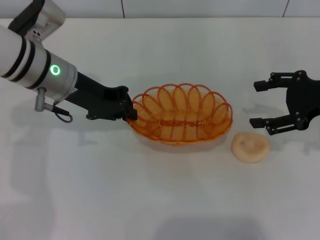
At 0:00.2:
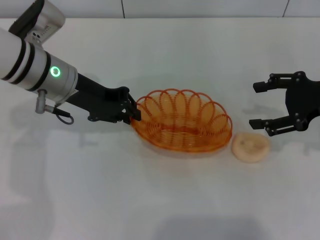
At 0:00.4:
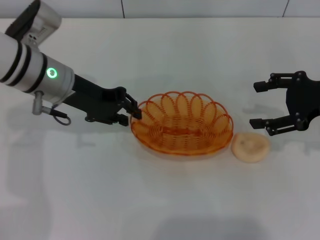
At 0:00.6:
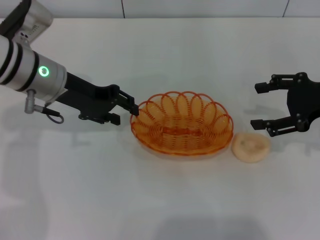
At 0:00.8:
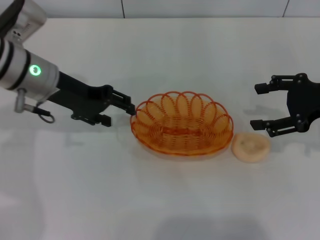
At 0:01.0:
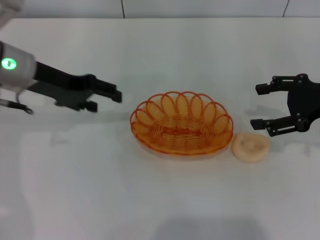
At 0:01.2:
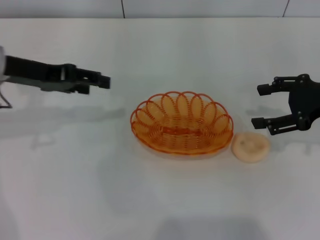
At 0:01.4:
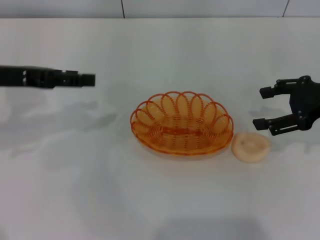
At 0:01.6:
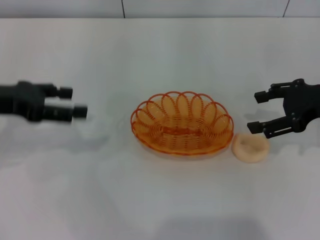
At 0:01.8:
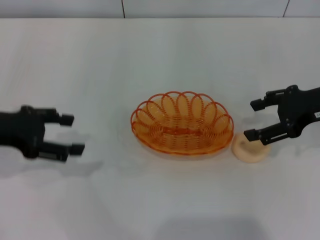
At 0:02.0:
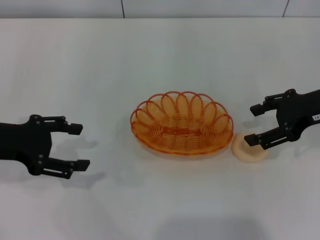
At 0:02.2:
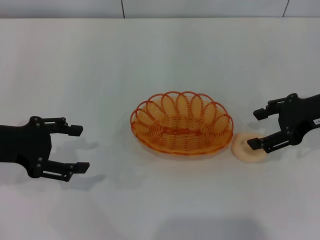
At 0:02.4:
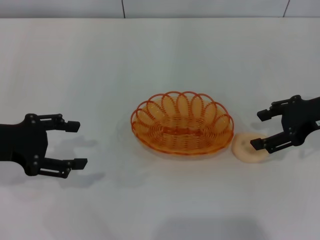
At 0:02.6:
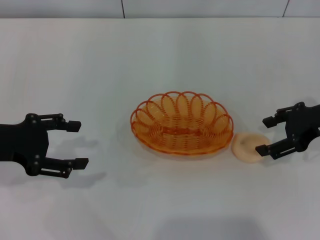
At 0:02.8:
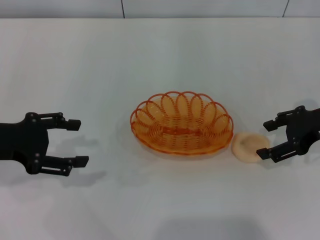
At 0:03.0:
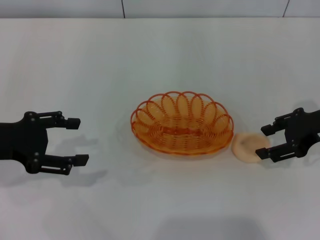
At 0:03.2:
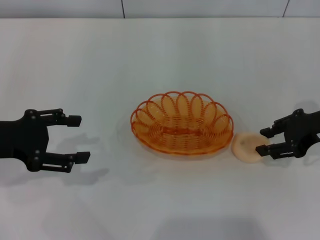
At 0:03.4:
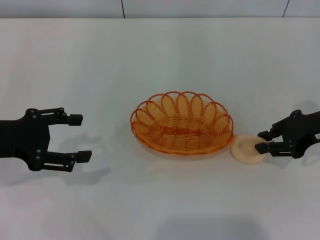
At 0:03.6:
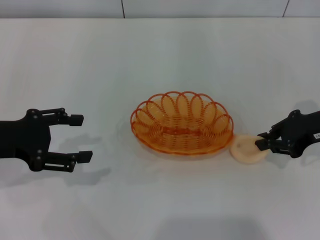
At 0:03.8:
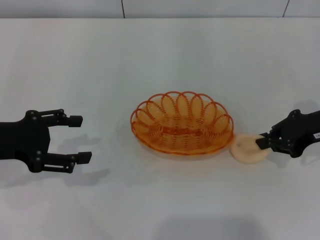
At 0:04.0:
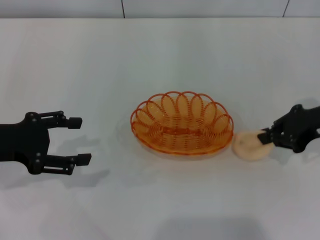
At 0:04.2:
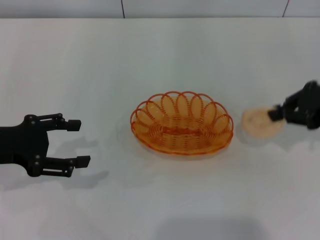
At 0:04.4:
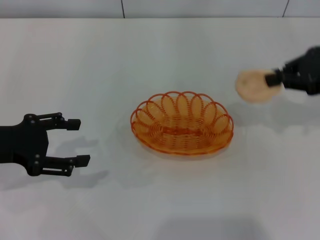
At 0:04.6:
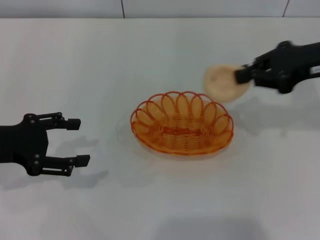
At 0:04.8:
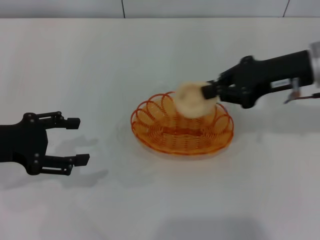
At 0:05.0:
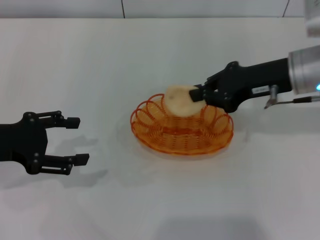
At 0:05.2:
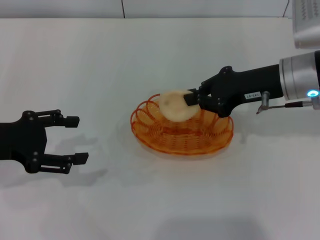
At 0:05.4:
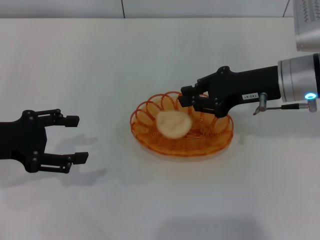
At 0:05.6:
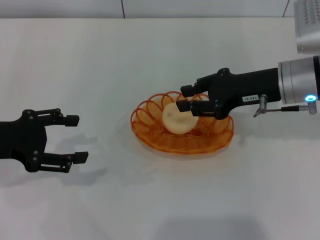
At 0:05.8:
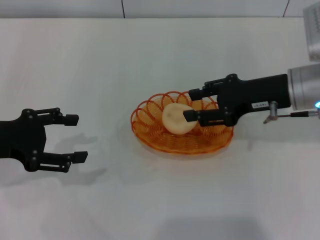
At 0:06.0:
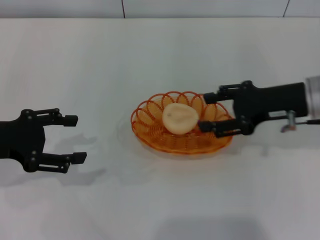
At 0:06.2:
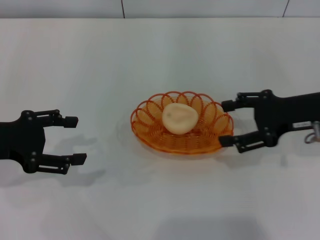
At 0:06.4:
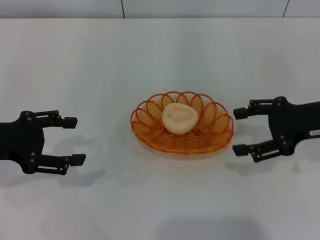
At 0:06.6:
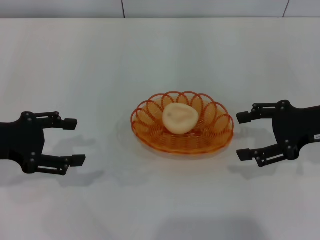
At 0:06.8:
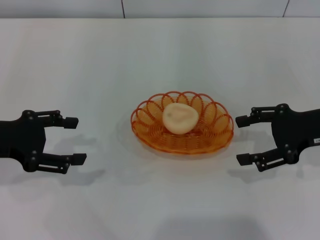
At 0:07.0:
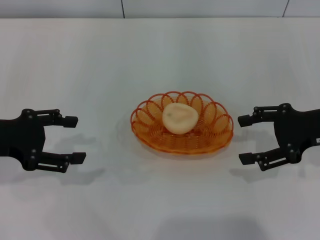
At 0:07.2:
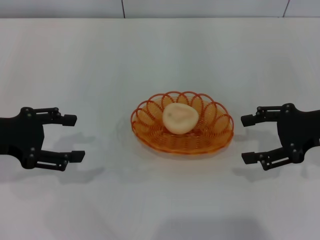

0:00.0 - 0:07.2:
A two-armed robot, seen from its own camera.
Step, 0:01.2 - 0:04.2: Pick up the egg yolk pastry with the right gripper.
Step, 0:04.4 - 0:05.8: Place the egg yolk pastry into the basket with the right gripper.
0:00.0 - 0:01.4: The left gripper goes about 15 cm to the left and backward, and opens its fingers.
0:01.4 - 0:02.8: The left gripper heads backward, covering some 5 cm.
0:02.8 - 0:04.4: The right gripper shifts about 5 cm upward, and closes up.
0:04.4 - 0:05.8: The right gripper moves to the left and downward, approximately 10 cm.
0:05.8 - 0:07.2: The right gripper heads to the right, covering approximately 10 cm, and opens its fingers.

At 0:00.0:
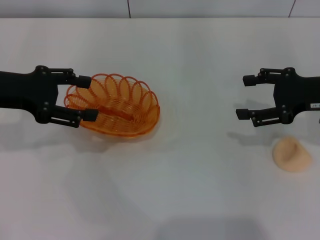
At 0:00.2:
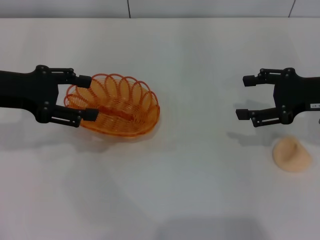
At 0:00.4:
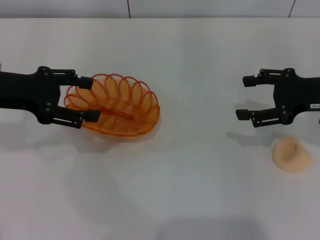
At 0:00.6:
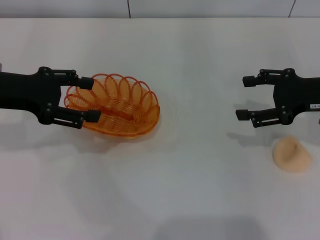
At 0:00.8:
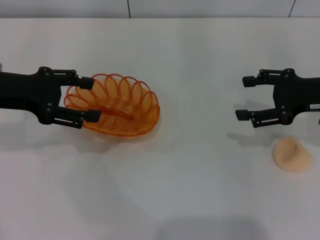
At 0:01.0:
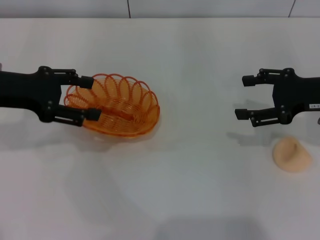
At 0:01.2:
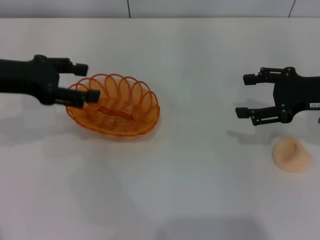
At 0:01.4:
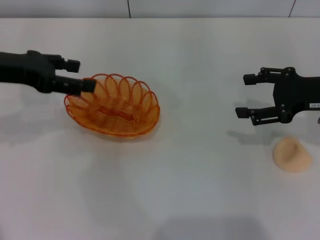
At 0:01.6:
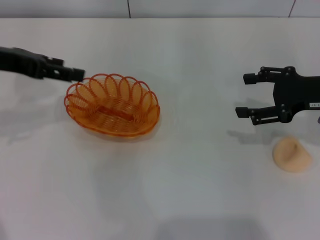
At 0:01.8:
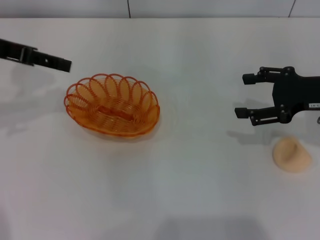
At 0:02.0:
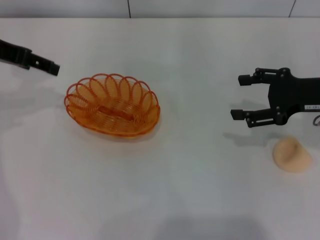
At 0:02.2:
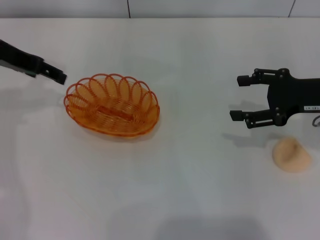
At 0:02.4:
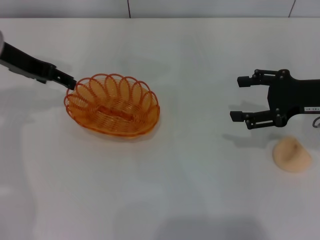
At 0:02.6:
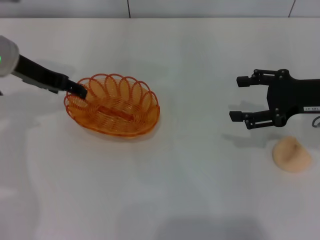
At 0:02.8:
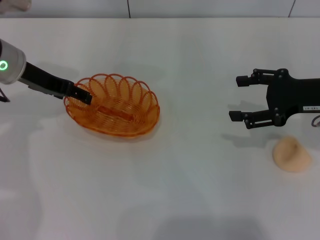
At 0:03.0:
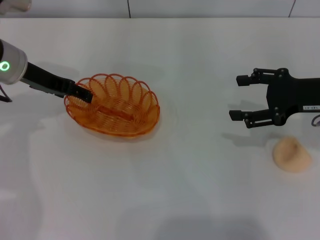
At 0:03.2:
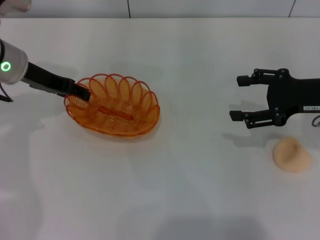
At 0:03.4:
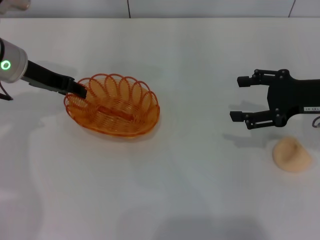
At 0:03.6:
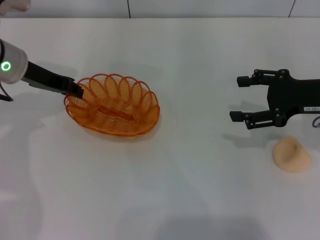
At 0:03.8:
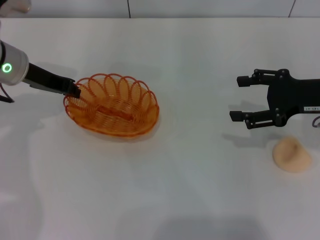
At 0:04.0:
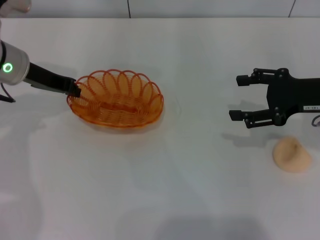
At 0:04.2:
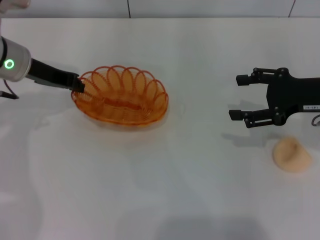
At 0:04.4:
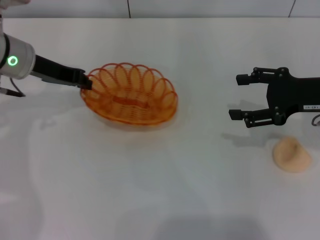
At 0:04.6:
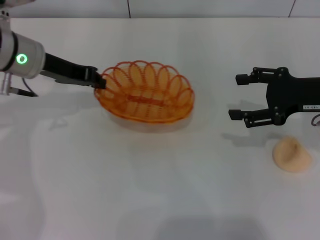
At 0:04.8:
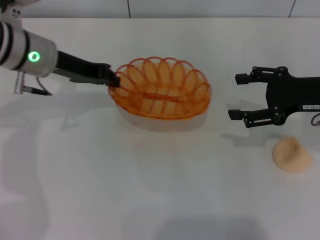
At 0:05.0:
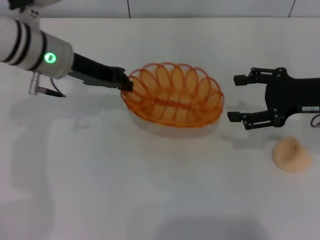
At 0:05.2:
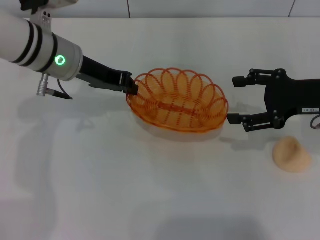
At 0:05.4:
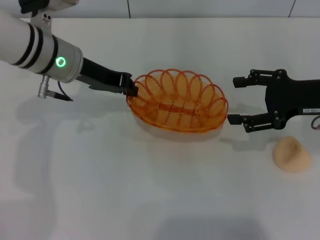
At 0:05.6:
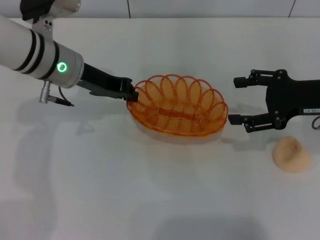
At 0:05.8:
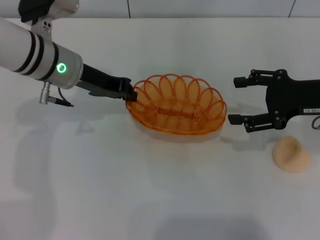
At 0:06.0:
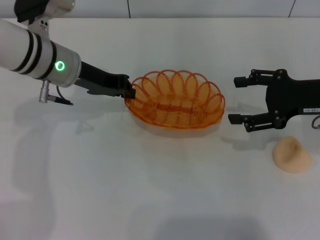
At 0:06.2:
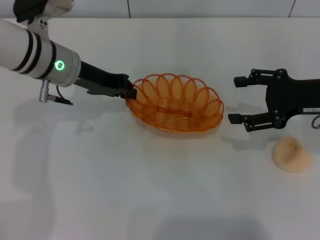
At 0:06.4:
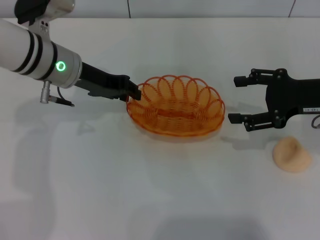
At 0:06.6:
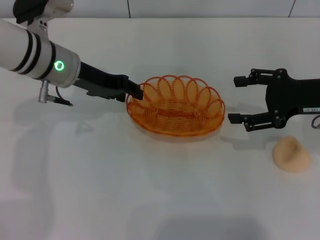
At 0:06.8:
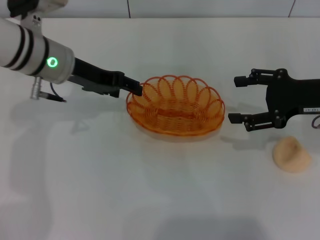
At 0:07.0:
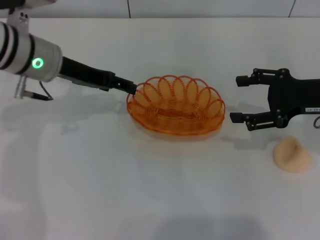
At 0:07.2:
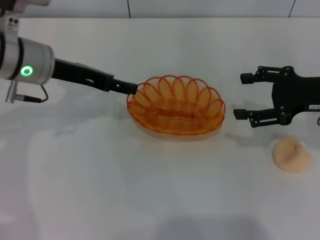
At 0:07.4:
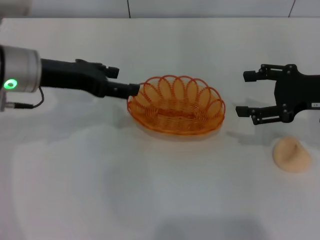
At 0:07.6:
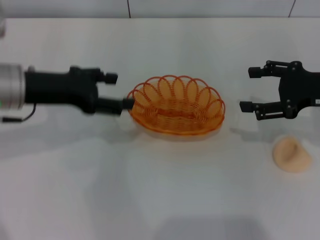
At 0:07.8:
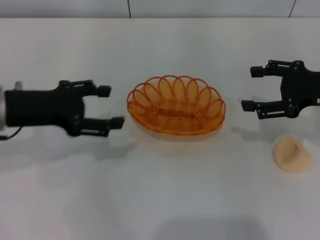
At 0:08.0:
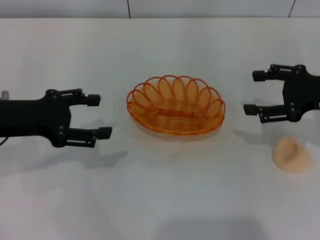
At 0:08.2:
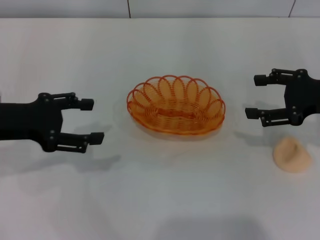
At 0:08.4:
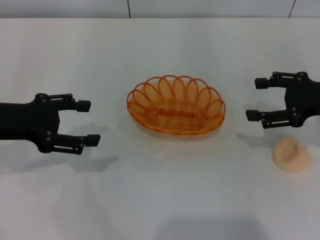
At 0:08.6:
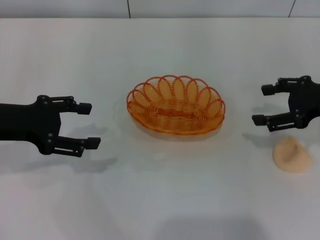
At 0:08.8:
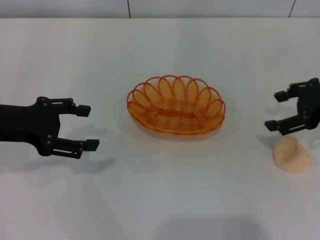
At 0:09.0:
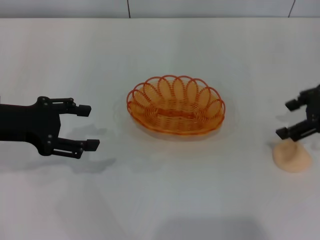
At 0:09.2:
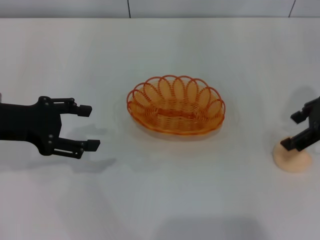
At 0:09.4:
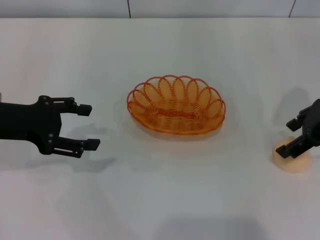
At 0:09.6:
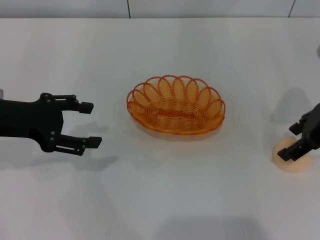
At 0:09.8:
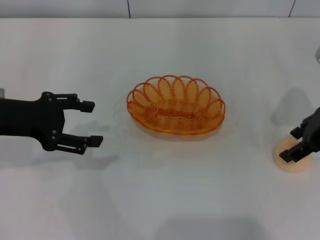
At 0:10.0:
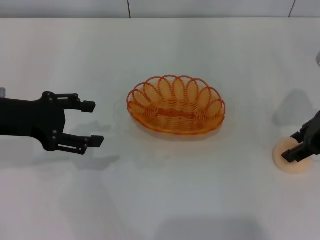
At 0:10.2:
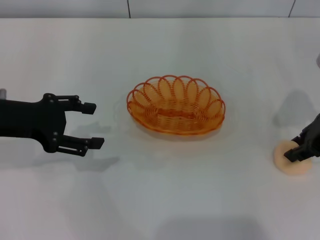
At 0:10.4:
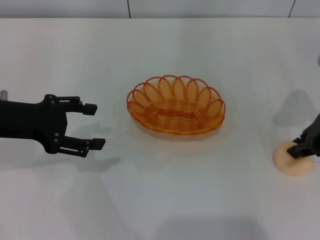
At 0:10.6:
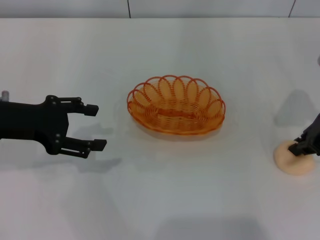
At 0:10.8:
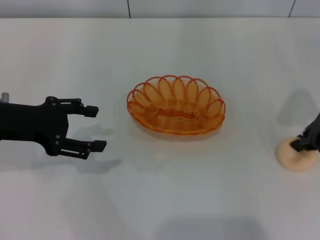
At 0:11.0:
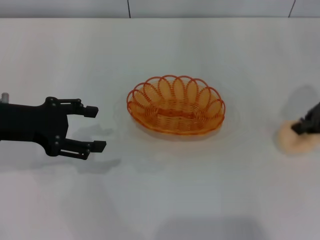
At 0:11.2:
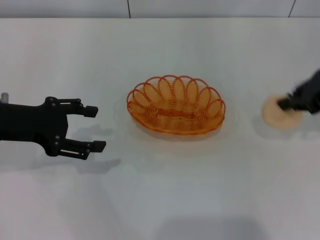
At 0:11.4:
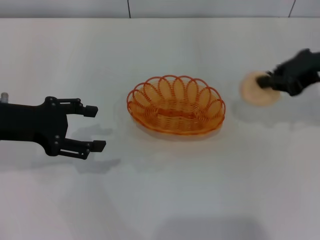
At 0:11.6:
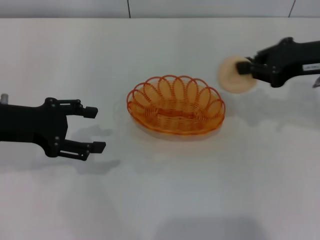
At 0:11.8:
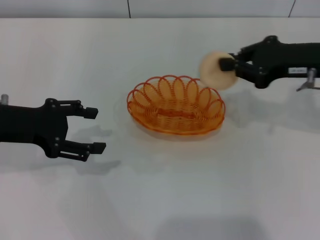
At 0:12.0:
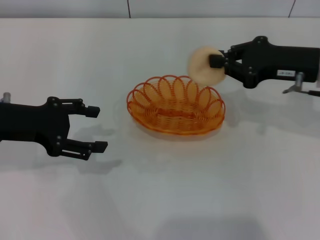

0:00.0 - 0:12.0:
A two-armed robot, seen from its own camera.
Step, 0:00.0 - 0:04.4: Pick up the basket with the left gripper.
Step, 0:04.6 - 0:07.2: Place the basket in the center of view with the left gripper.
Step, 0:07.4 - 0:11.0: Pick up the egg yolk pastry with the right gripper.
0:01.6 - 0:03.0: The left gripper heads downward and forward, covering roughly 10 cm.
0:03.0 - 0:04.4: The left gripper closes.
0:04.4 - 0:06.0: The left gripper travels to the right by roughly 5 cm.
0:06.0 - 0:07.6: The left gripper travels backward and to the left by some 10 cm, and opens.
0:07.6 - 0:09.0: The left gripper shifts some 5 cm to the left.
0:09.0 - 0:10.4: The right gripper closes up.
0:10.4 - 0:12.0: The right gripper closes its fingers.

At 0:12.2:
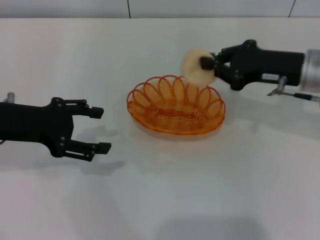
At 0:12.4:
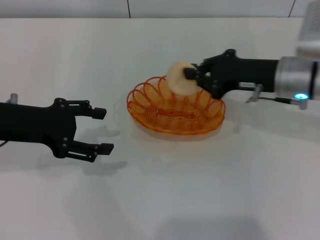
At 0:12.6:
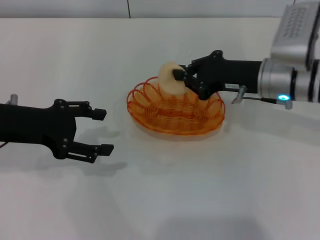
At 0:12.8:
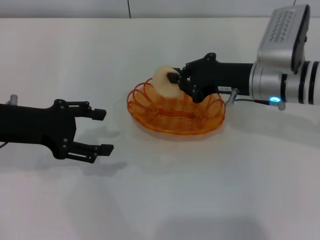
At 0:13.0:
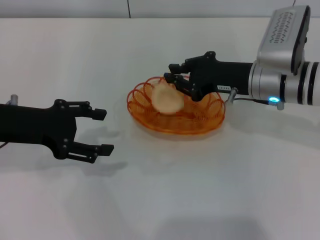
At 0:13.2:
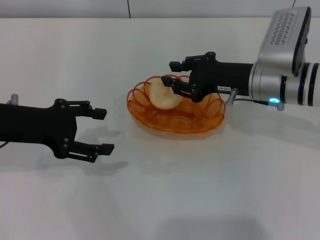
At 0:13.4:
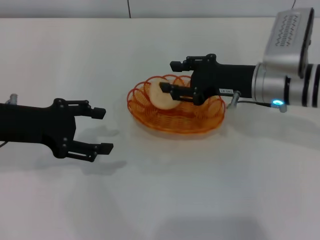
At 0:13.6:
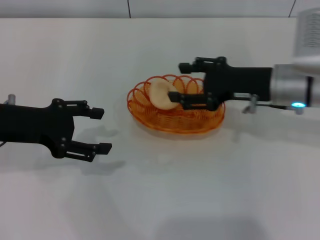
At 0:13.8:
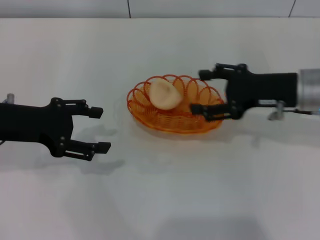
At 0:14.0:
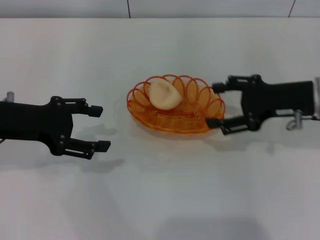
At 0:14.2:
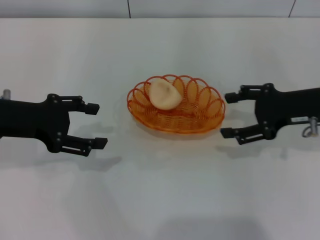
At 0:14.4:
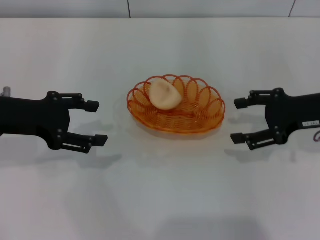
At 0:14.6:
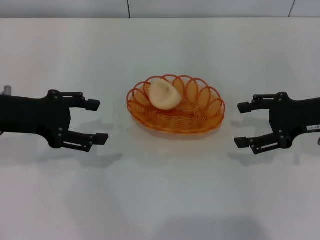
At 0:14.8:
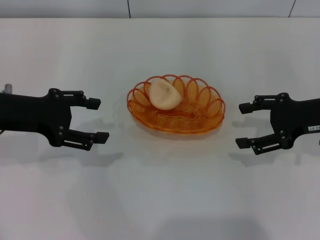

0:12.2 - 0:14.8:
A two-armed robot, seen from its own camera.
Step, 0:12.2 - 0:13.6: Place the egg yolk pastry into the basket with the right gripper.
0:12.2 - 0:13.4: The right gripper goes roughly 5 cm to the left.
0:13.4 - 0:14.8: The right gripper heads to the right, covering approximately 10 cm, and opens.
